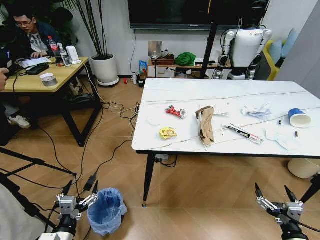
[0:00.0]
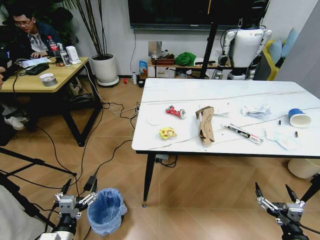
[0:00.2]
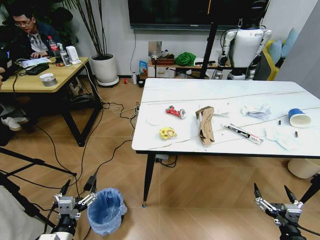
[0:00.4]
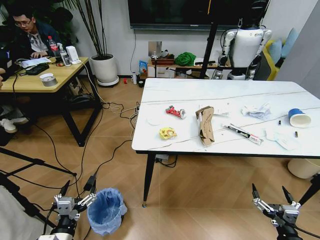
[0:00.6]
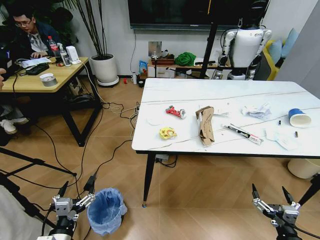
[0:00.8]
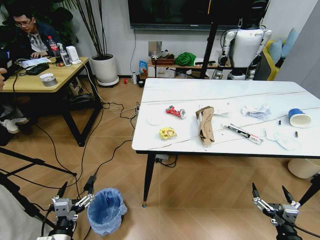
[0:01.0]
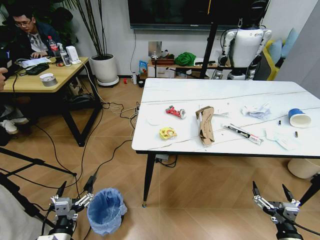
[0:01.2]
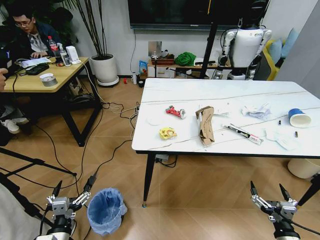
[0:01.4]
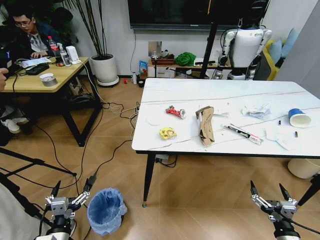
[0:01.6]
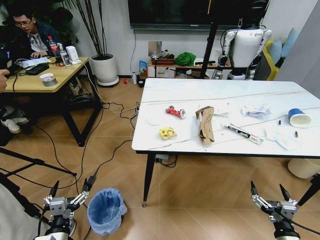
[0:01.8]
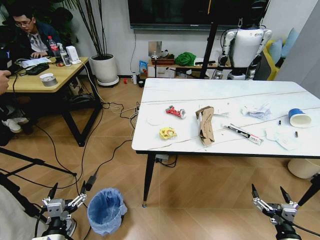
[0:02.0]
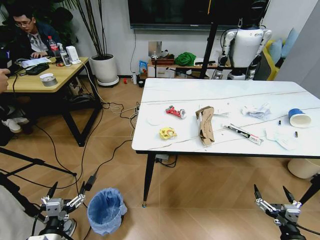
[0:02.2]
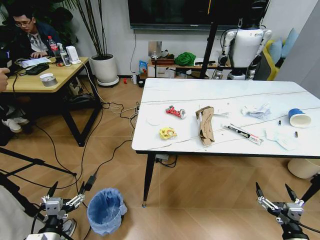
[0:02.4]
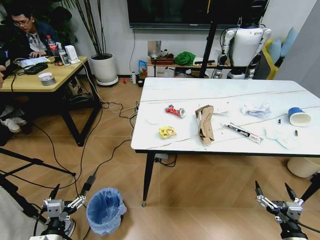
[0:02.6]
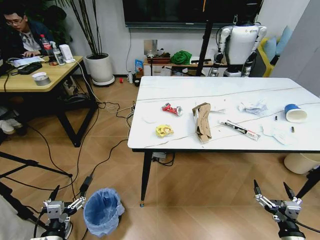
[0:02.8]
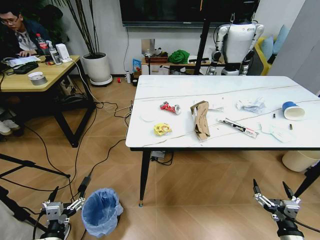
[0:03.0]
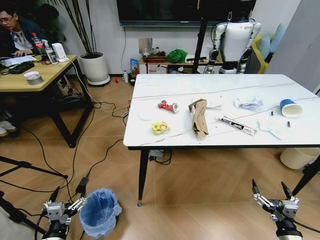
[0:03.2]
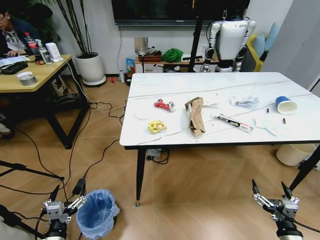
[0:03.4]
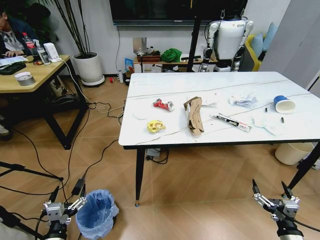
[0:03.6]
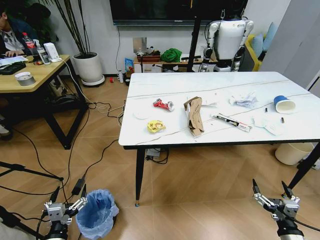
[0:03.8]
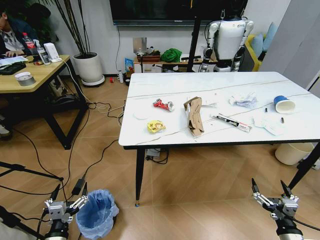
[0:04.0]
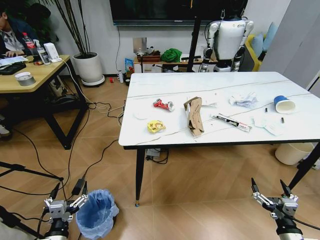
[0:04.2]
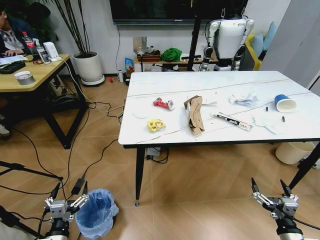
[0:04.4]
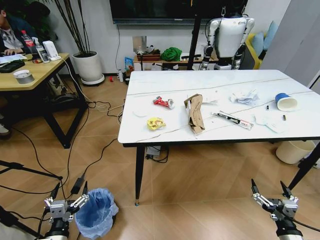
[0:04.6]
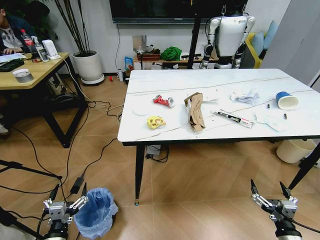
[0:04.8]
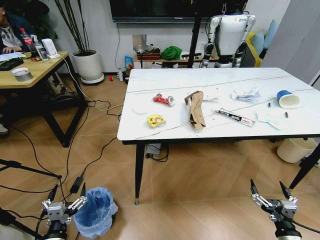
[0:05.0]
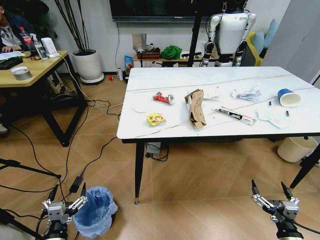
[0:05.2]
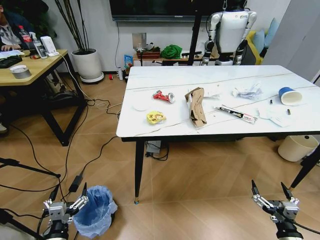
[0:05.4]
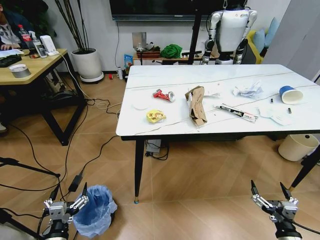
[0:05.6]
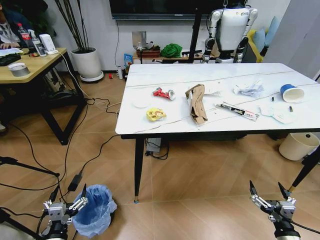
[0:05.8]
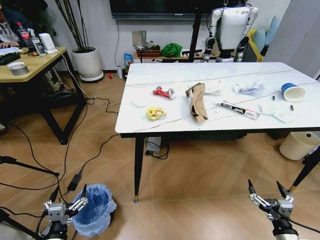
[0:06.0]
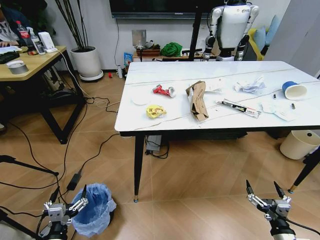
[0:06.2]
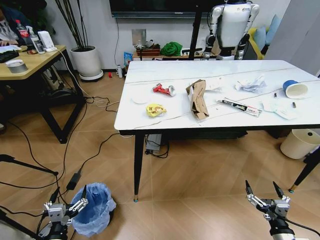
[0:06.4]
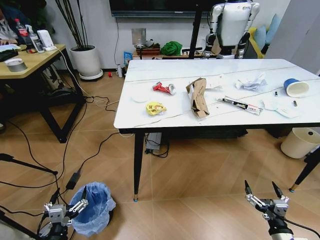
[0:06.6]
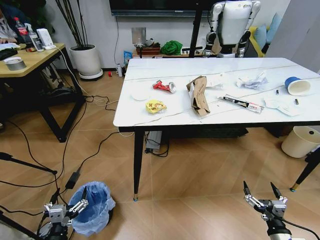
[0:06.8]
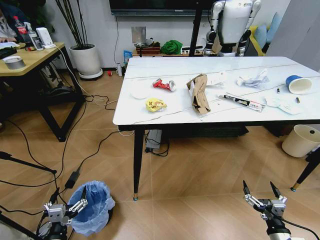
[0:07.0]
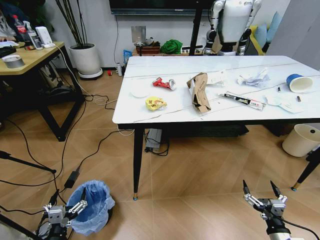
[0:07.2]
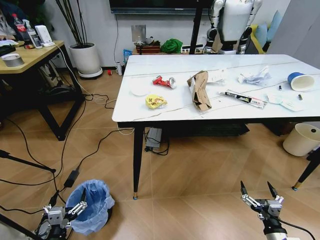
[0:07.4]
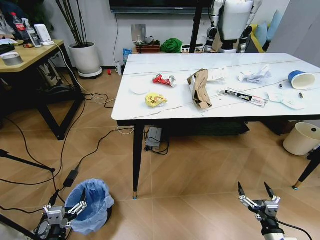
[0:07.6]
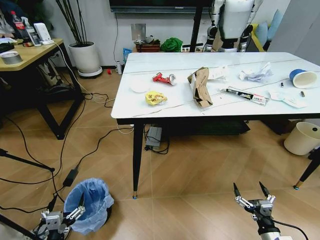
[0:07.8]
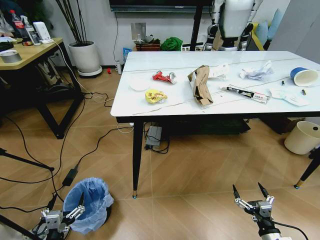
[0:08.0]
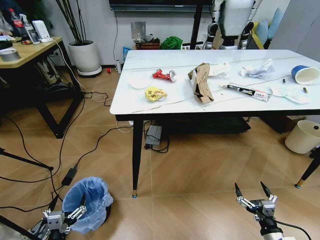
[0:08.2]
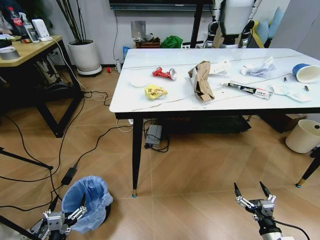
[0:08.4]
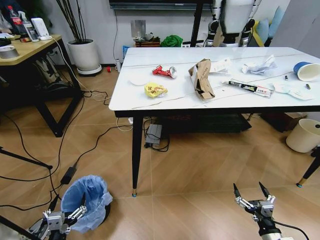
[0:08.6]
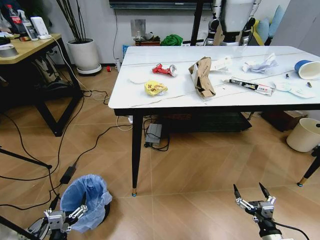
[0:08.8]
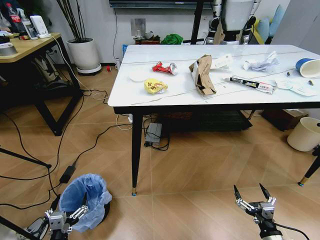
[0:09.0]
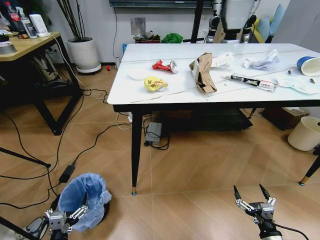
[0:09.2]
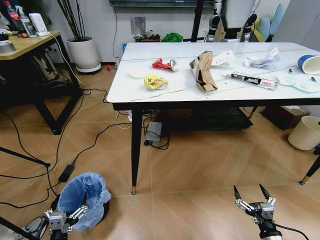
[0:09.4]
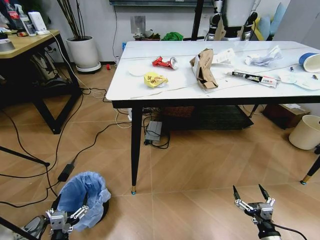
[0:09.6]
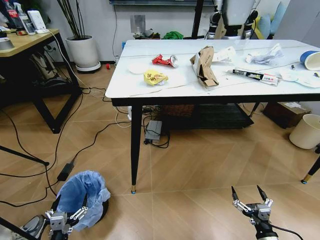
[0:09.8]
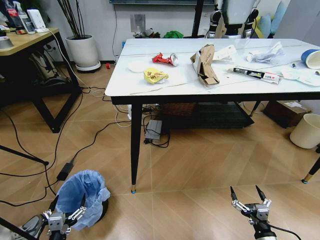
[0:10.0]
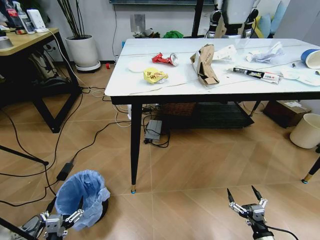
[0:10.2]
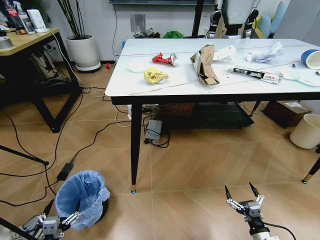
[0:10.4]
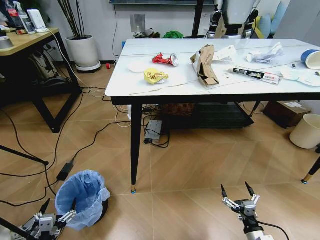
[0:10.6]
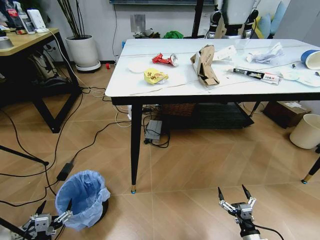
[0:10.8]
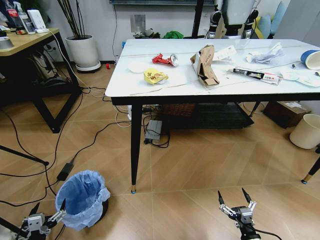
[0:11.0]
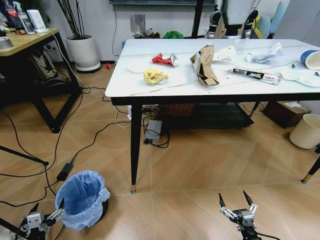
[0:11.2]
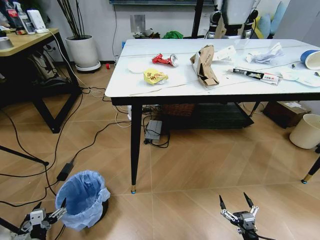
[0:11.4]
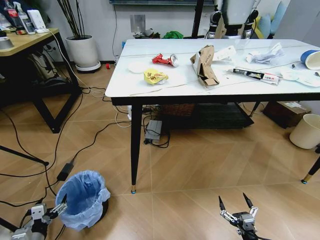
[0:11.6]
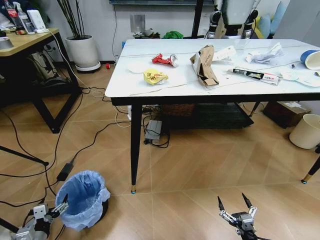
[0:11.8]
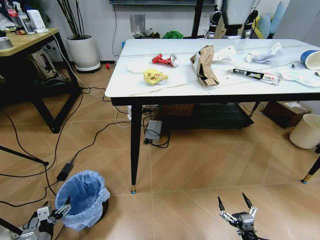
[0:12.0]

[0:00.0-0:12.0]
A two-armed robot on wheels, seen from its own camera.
Task of the whole recording: Pick up the trash bin and place the trash from the table into it.
0:10.4 to 0:12.0: The left gripper moves to the left, forward and downward, roughly 10 cm; the right gripper moves some 5 cm.

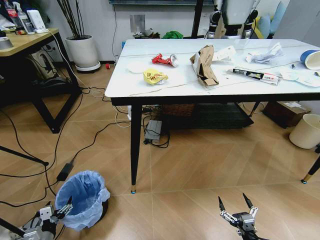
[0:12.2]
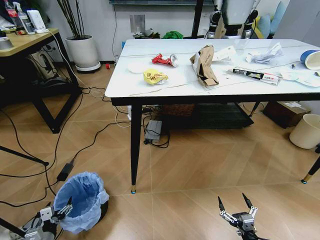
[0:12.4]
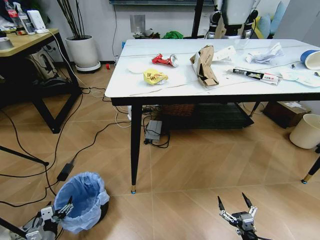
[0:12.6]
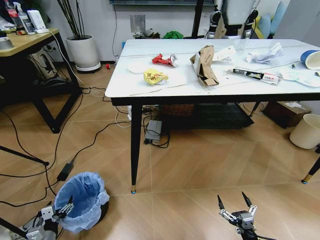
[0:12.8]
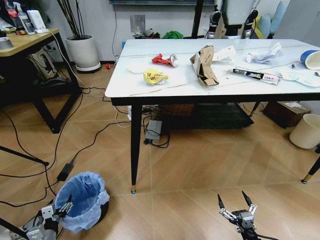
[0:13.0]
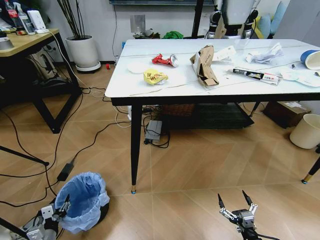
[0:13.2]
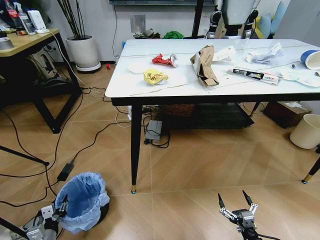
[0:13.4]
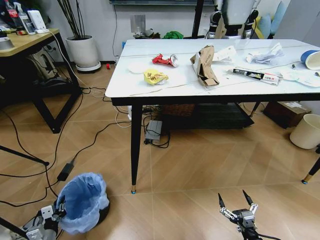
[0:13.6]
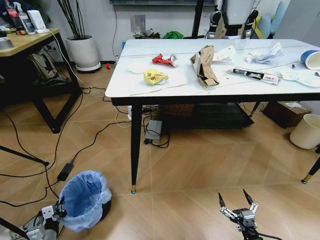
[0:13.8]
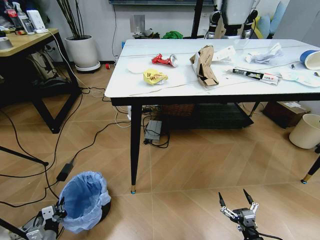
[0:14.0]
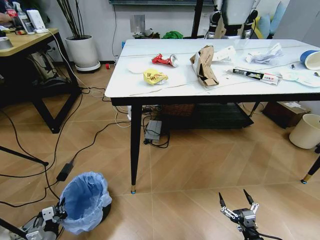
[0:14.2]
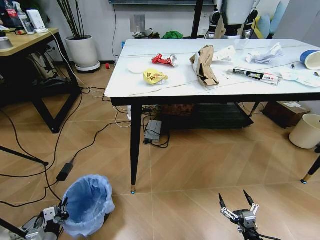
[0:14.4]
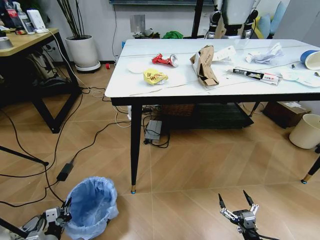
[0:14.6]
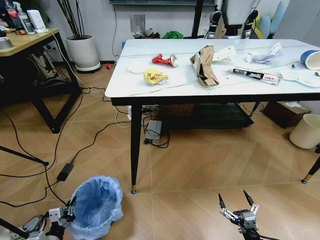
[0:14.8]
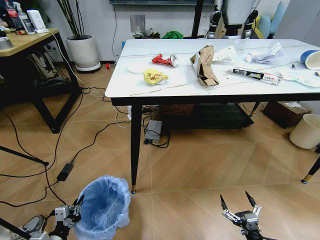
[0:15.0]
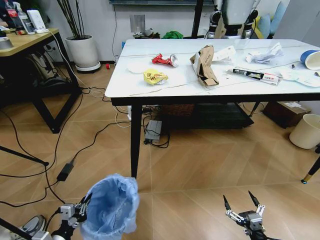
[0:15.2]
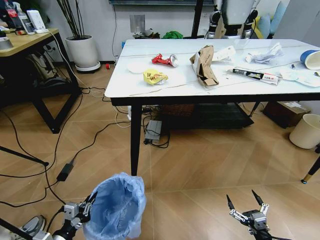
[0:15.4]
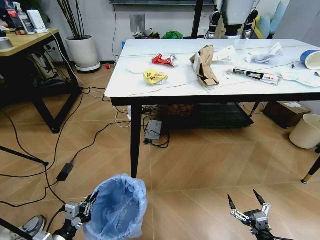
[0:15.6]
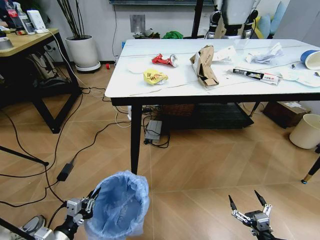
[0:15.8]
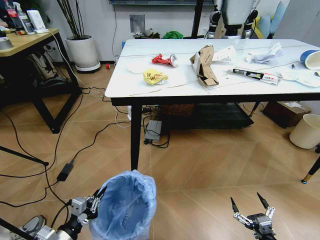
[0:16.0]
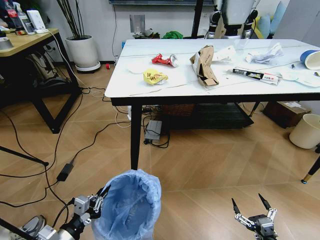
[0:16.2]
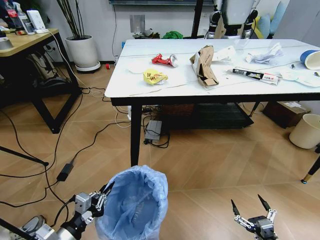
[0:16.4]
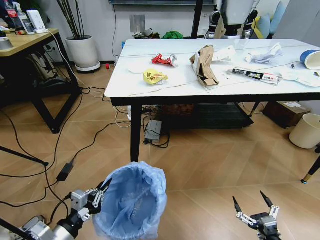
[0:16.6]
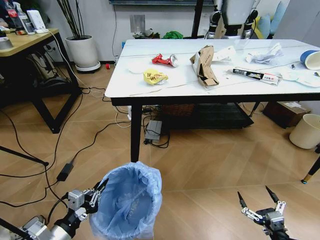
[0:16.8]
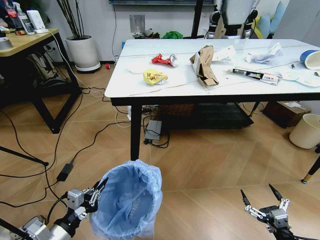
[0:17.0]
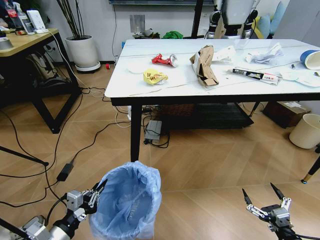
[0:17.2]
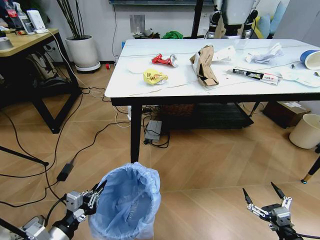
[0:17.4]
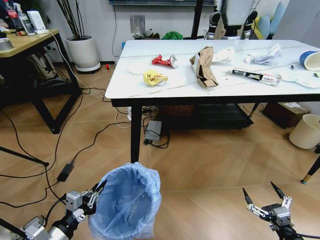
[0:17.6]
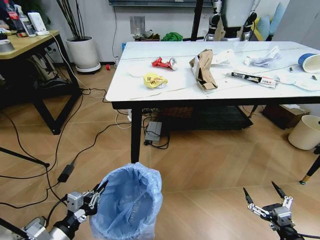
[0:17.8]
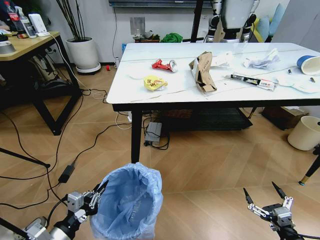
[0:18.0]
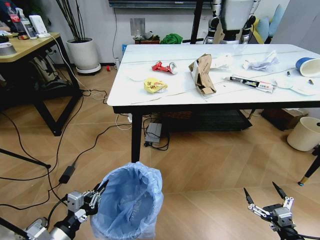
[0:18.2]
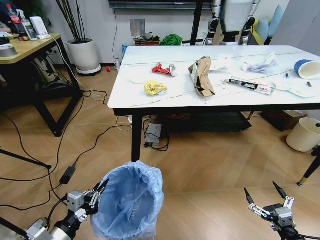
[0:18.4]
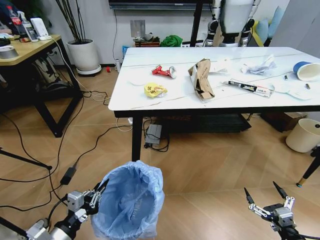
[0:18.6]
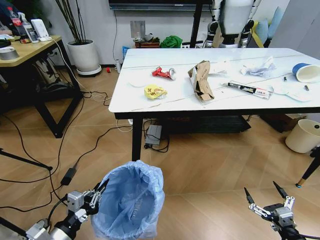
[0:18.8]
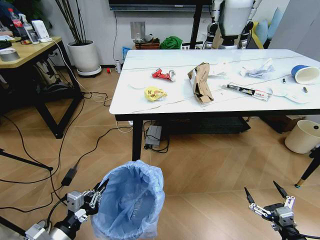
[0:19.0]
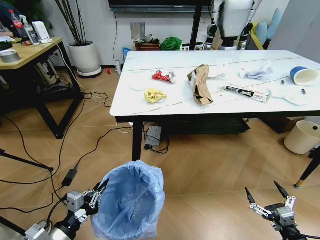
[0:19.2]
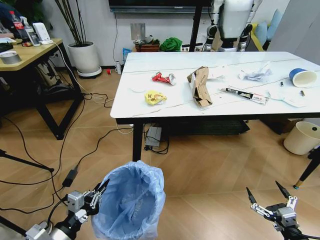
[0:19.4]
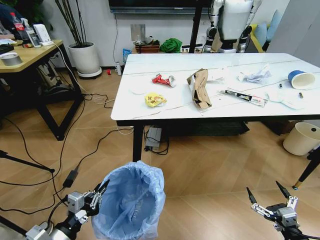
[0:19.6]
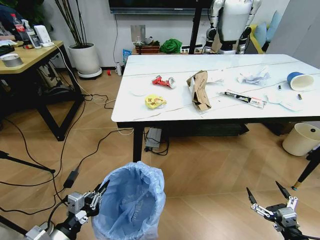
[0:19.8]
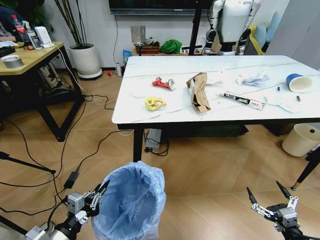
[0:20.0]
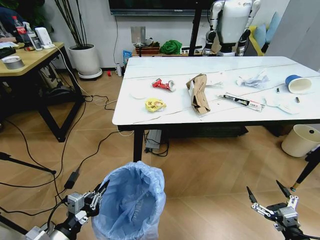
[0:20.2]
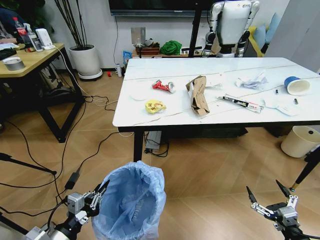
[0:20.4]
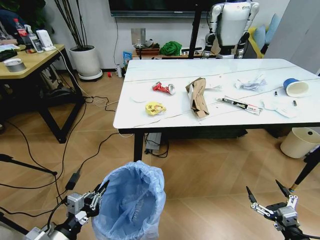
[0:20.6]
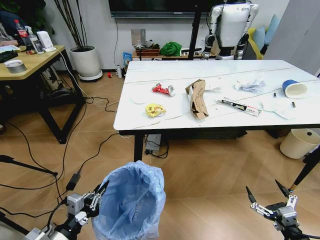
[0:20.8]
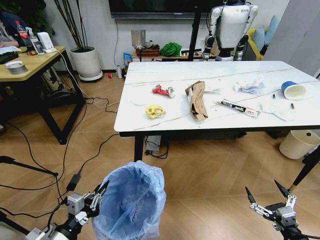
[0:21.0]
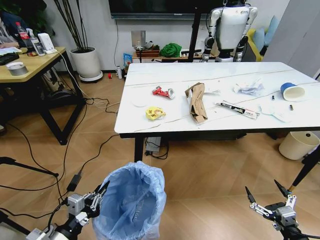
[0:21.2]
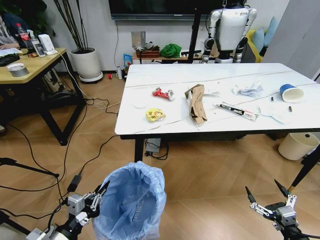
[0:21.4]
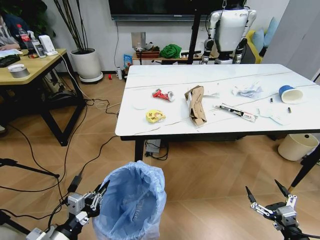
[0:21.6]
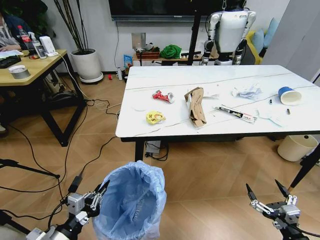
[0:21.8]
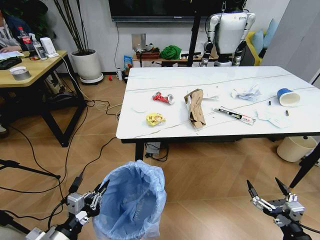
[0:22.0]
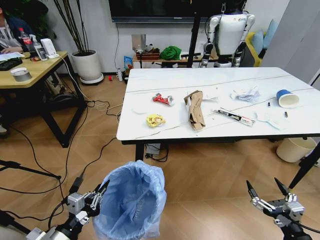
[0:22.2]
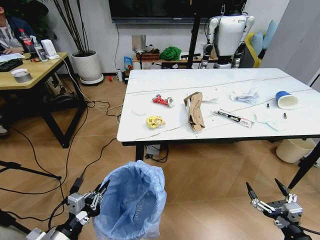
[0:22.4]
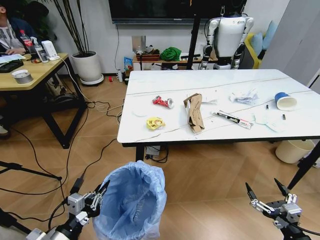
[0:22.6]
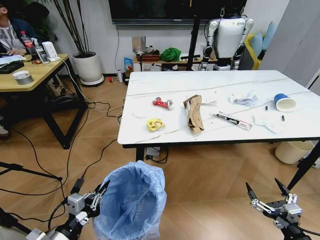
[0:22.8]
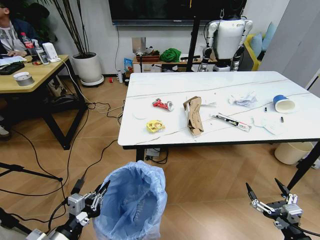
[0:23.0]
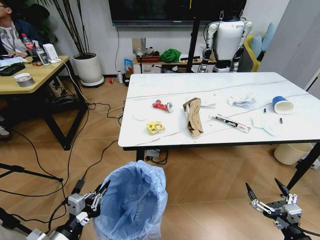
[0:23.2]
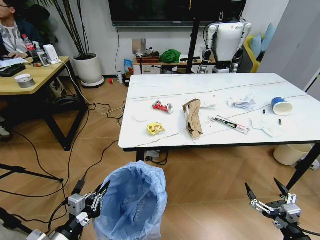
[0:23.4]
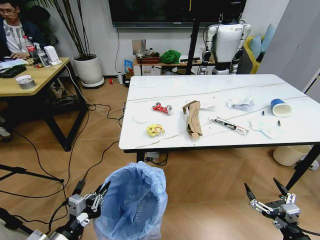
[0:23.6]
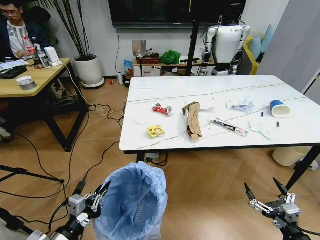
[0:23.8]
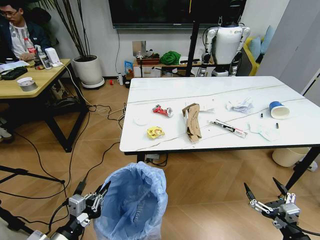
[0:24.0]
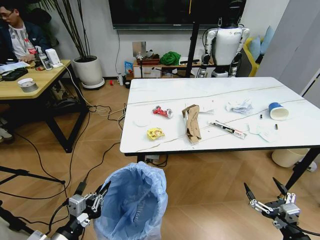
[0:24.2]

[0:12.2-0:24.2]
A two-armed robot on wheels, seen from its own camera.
Task of the whole recording: Pick up the trash bin and place the trash from the table into it.
0:12.2 to 0:13.8: The left gripper closes.
0:13.8 to 0:15.2: The left gripper goes approximately 10 cm upward and to the right.
0:15.2 to 0:16.6: The left gripper travels upward and to the right by about 15 cm, while the right gripper ends up about 5 cm from where it was.
0:16.6 to 0:18.2: The right gripper shifts by some 5 cm.
